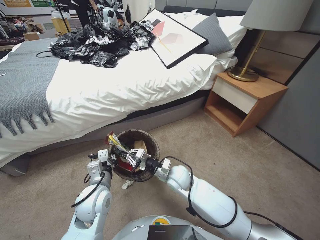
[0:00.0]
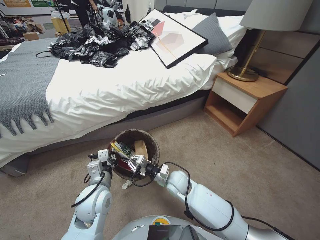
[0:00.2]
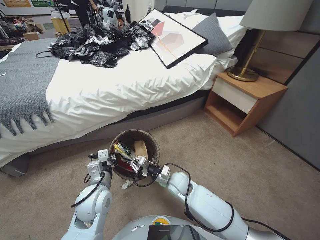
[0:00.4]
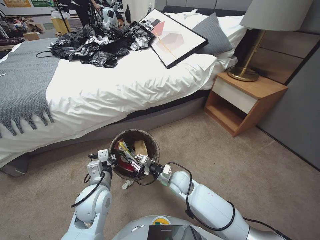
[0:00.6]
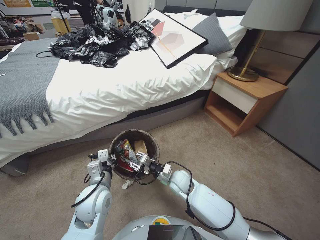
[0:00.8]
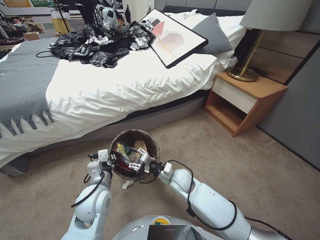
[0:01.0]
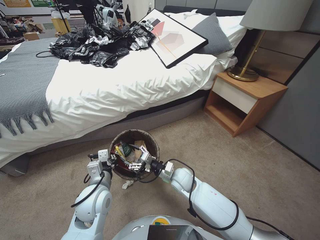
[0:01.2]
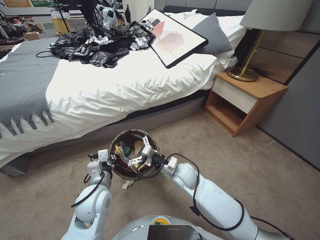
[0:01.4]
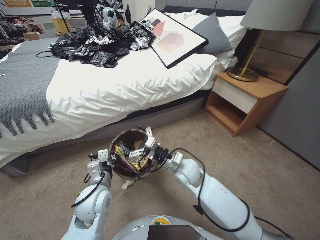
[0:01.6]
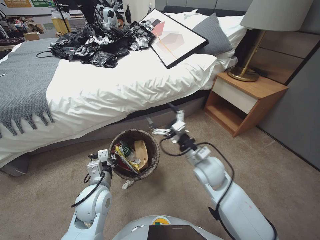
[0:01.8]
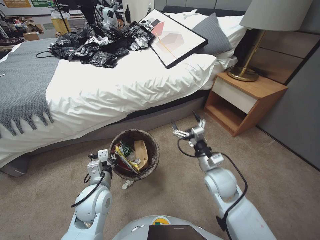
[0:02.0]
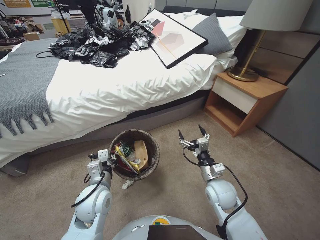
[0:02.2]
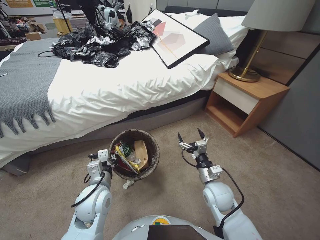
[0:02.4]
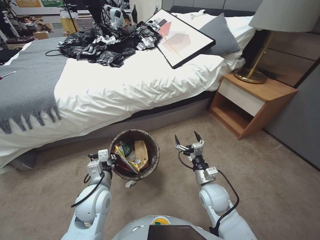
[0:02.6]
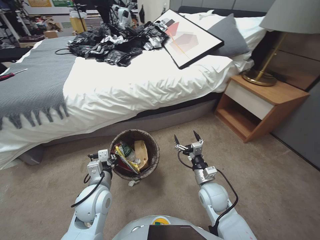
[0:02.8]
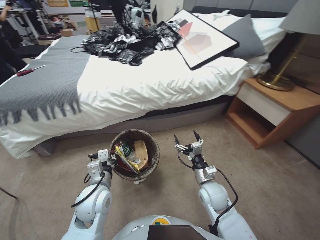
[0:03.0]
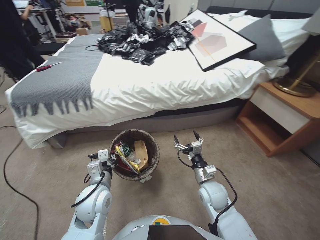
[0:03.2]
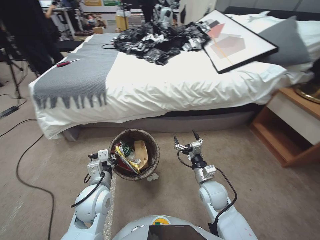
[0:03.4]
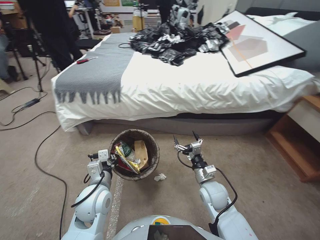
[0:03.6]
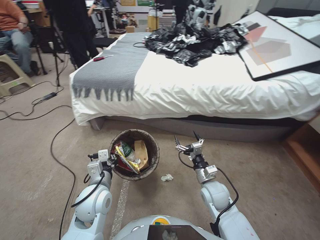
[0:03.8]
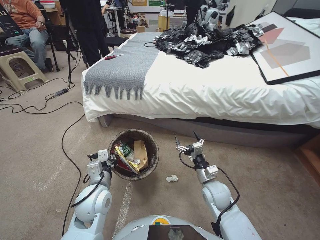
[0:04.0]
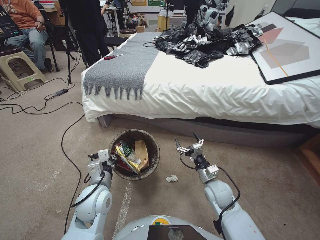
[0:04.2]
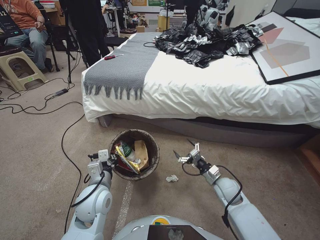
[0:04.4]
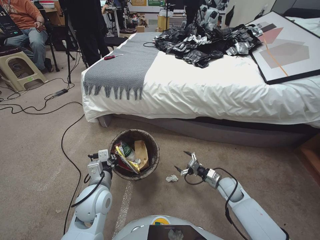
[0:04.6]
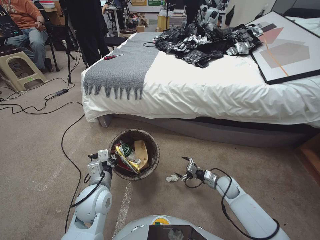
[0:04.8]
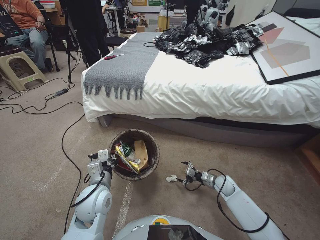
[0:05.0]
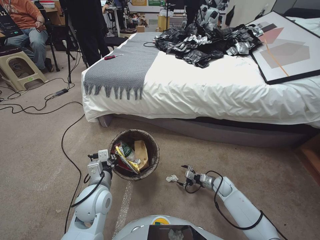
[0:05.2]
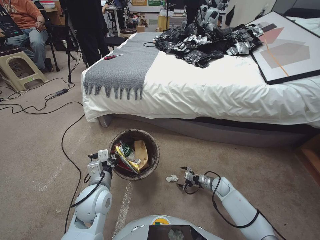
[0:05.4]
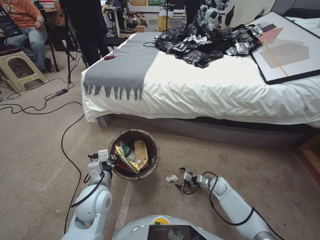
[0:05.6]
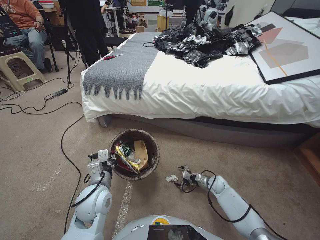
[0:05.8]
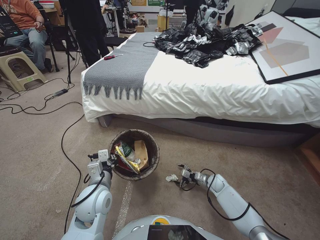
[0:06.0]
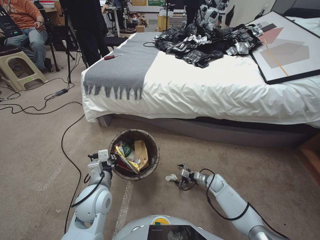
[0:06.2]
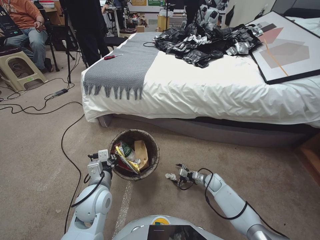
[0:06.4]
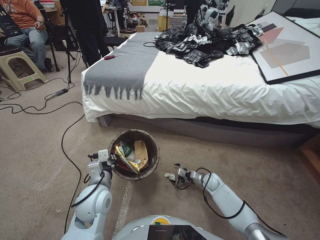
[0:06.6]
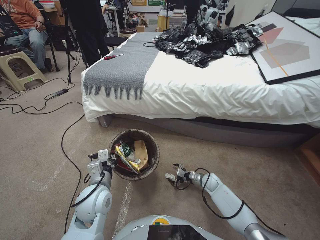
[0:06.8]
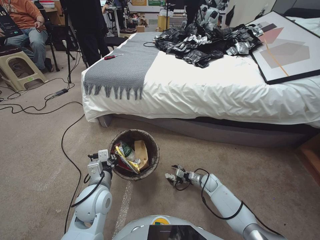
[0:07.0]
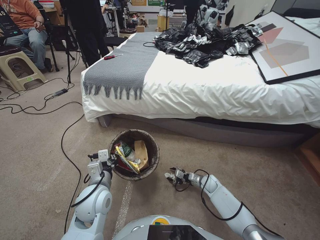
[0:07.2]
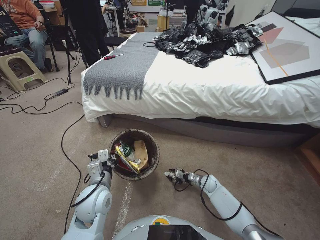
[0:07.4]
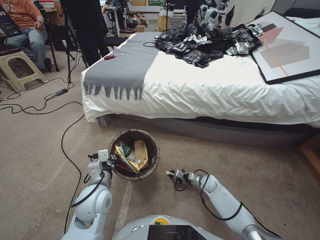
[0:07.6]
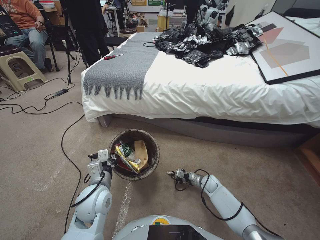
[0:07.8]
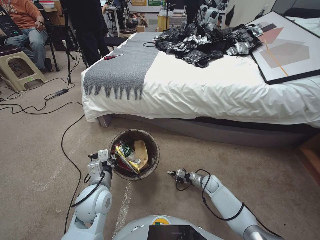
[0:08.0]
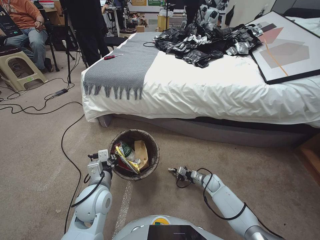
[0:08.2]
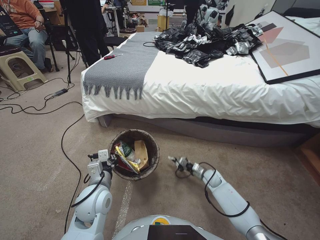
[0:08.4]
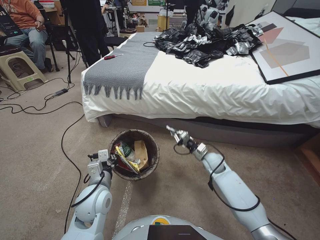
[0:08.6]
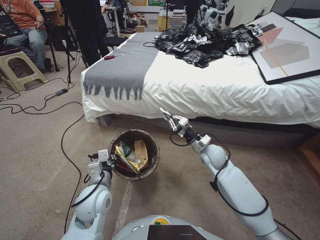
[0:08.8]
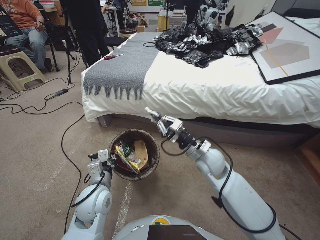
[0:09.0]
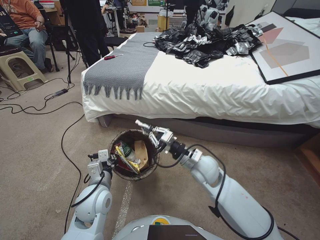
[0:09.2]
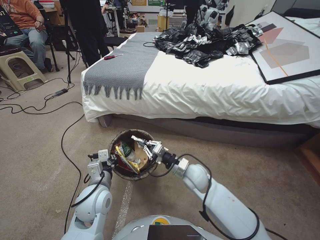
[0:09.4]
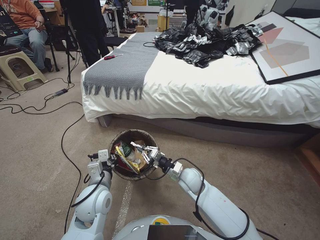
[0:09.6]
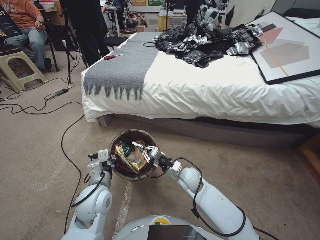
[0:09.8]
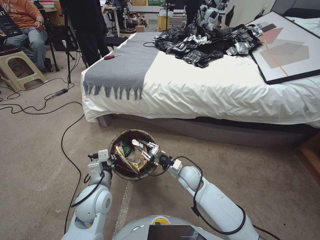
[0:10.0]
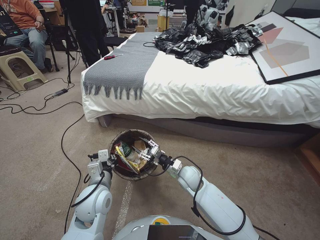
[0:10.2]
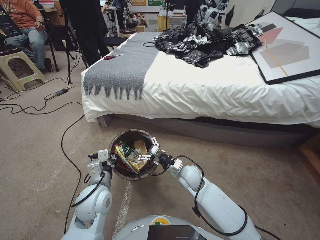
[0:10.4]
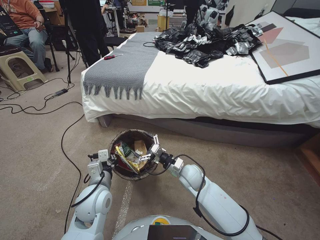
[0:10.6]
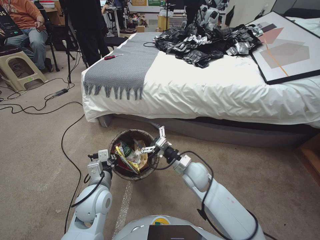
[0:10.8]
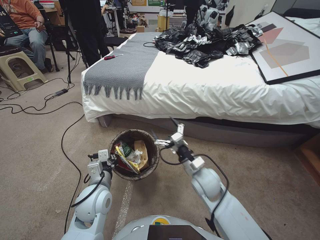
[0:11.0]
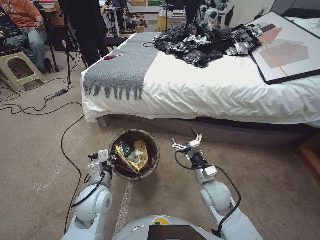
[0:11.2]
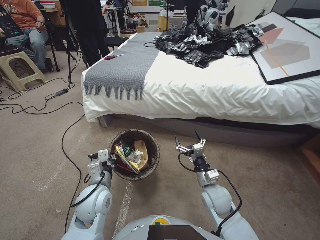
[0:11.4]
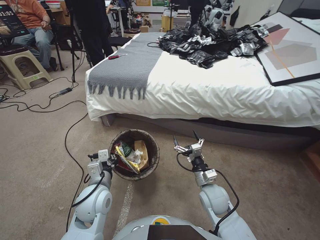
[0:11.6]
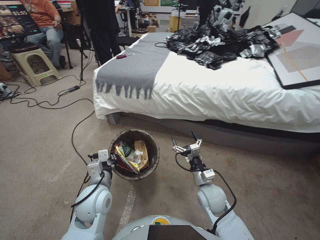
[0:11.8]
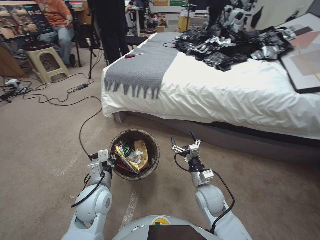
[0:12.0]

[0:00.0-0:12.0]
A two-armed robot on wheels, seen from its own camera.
Task of the whole recording: Pick up the trash bin, then pick up the garbage from the floor and place it into the trash bin.
0:00.0 to 0:01.6: The right gripper opens up.
0:01.6 to 0:03.0: The right gripper is displaced to the right and backward by roughly 10 cm.
0:03.0 to 0:04.4: The right gripper is displaced to the right by approximately 5 cm.
0:04.4 to 0:06.0: The right gripper is displaced downward and forward by some 20 cm.
0:06.0 to 0:07.6: The right gripper closes.
0:07.6 to 0:09.0: The right gripper is displaced upward by roughly 30 cm.
0:09.0 to 0:10.4: The right gripper is displaced downward and to the left by about 15 cm, and opens.
0:10.4 to 0:12.0: The right gripper heads backward and to the right, covering about 10 cm, and opens up.

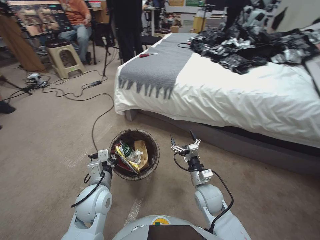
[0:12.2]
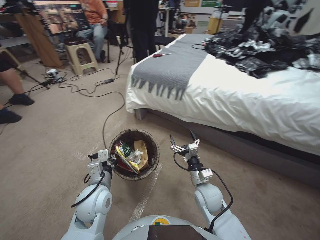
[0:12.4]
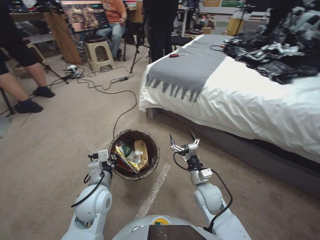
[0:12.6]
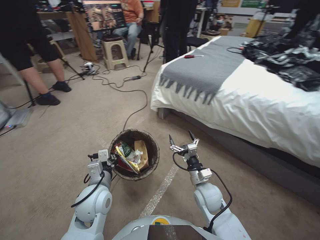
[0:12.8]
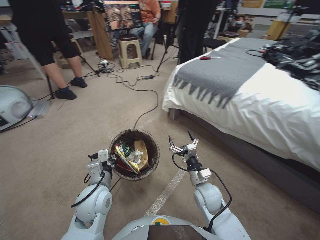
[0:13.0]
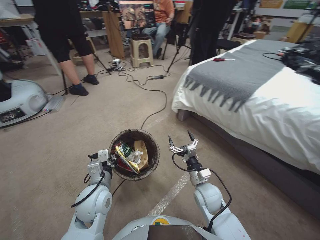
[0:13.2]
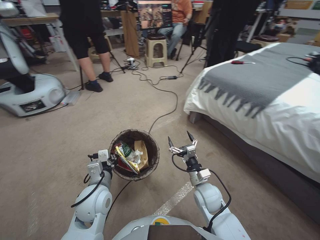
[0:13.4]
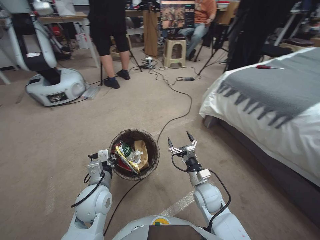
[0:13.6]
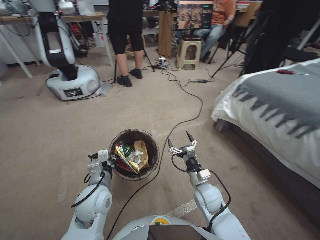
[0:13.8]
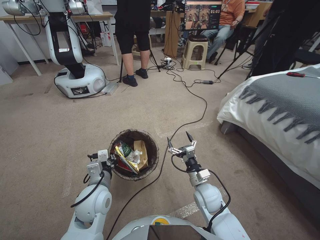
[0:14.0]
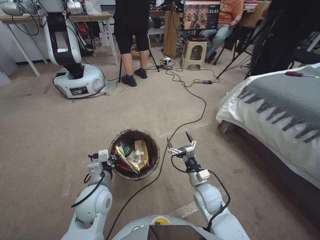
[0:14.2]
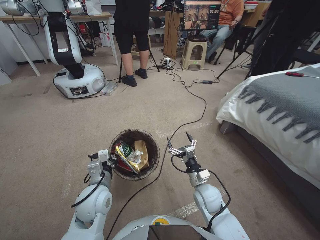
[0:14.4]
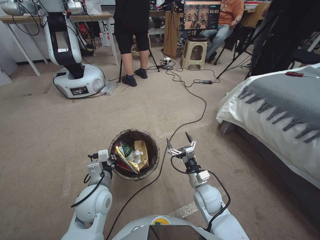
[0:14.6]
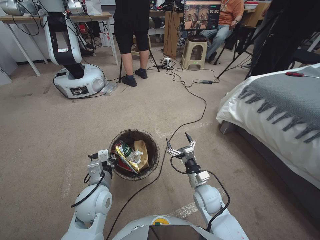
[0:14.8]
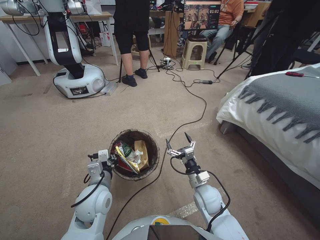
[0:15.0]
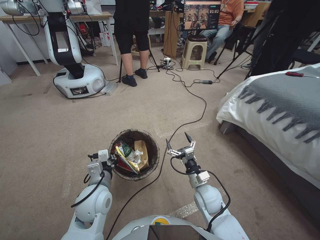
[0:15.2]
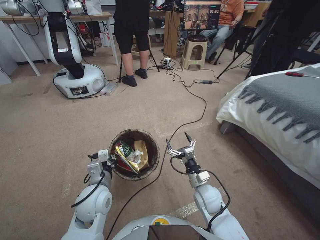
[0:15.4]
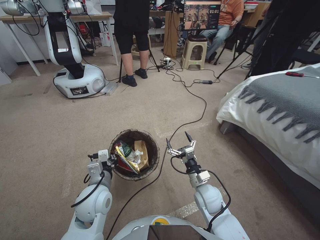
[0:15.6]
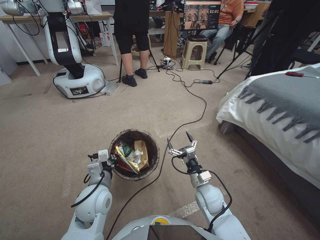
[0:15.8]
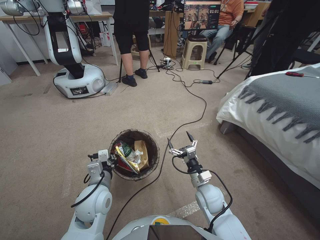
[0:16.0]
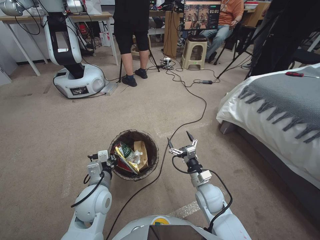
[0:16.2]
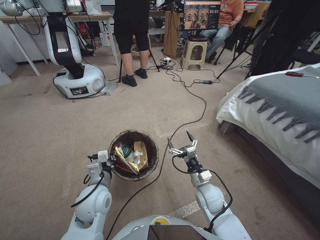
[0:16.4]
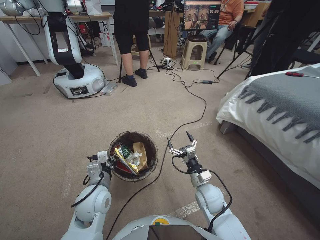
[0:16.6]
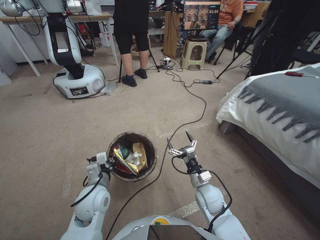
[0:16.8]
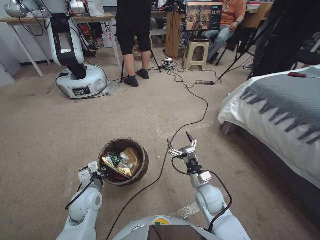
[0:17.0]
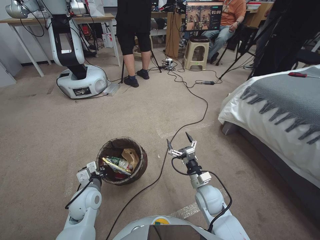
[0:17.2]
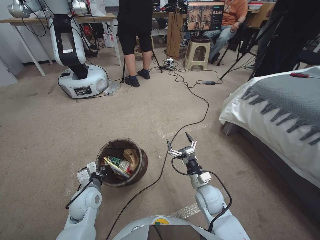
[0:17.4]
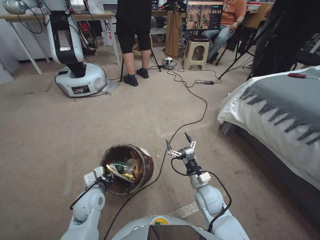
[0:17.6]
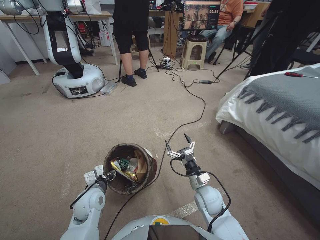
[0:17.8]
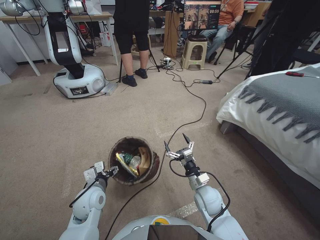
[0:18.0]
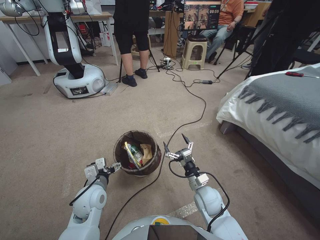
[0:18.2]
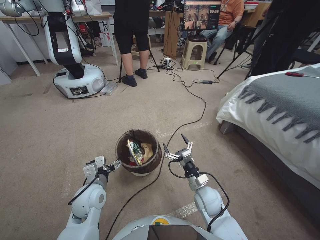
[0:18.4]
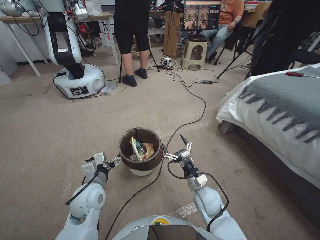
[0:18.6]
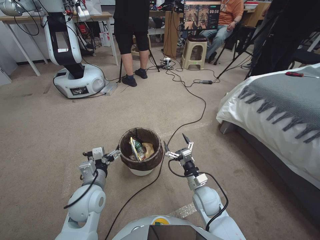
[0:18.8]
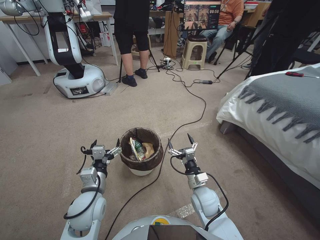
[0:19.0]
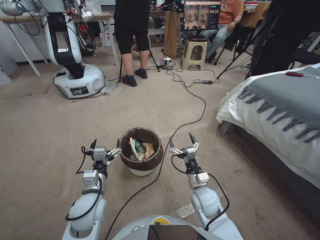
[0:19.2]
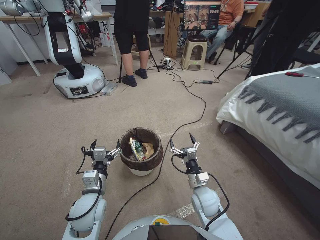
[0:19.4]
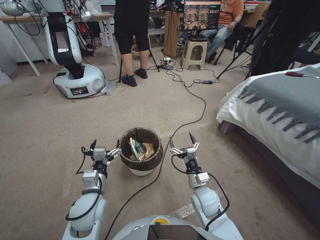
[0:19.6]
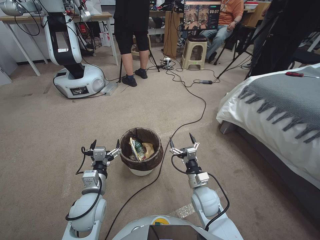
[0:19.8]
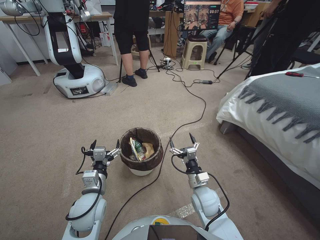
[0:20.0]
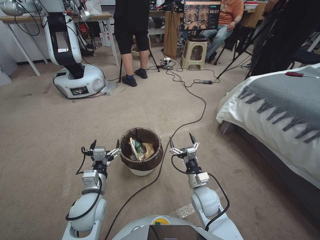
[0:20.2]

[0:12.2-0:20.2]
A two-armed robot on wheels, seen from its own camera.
Task of the whole recording: Pick up the trash bin, then pick up the garbage from the floor and place it into the trash bin.
0:15.4 to 0:17.0: Both grippers stay put.
0:17.0 to 0:18.6: The left gripper opens.
